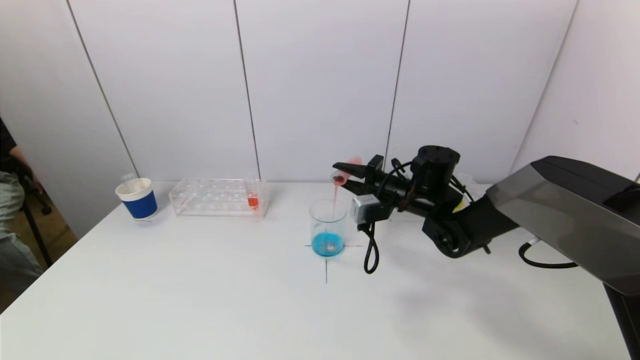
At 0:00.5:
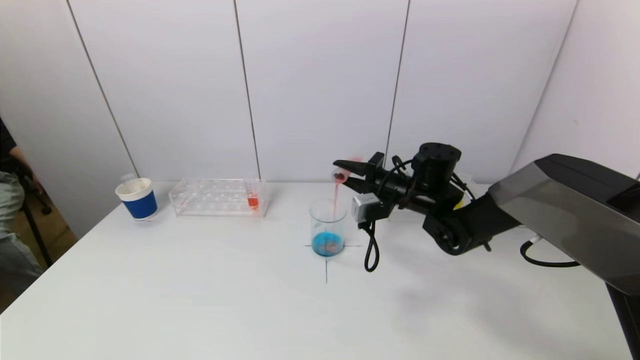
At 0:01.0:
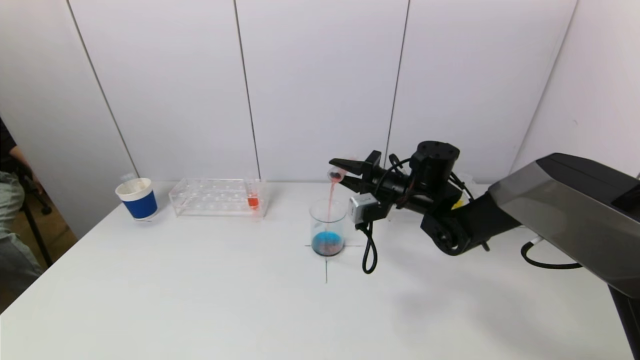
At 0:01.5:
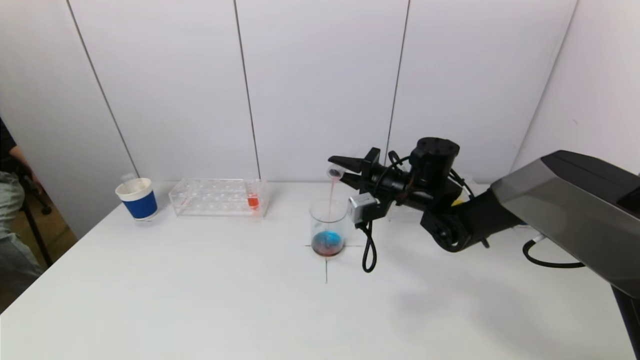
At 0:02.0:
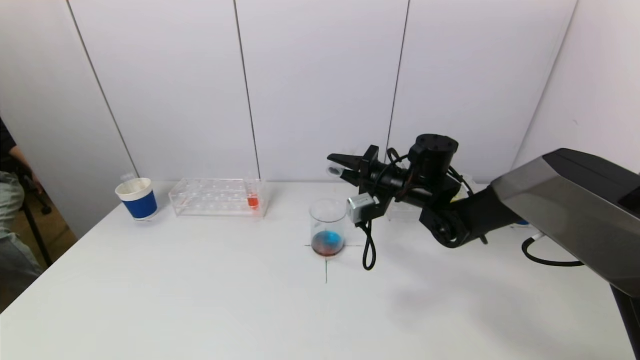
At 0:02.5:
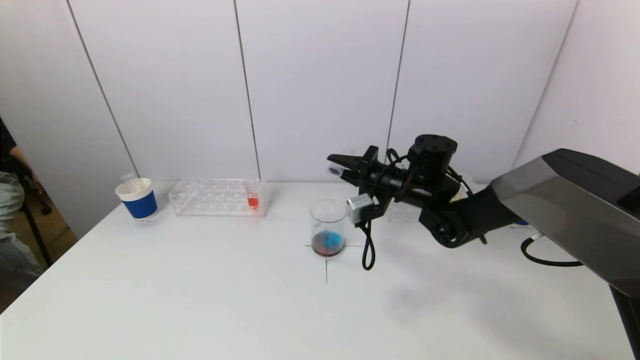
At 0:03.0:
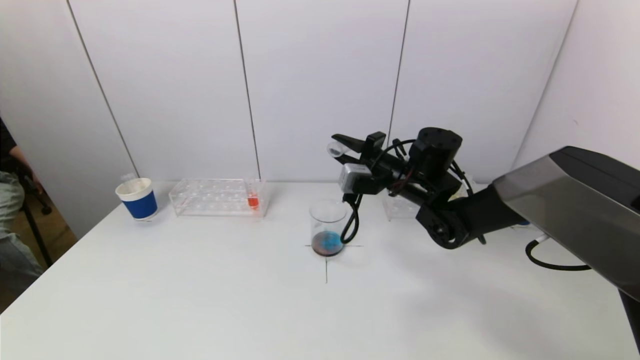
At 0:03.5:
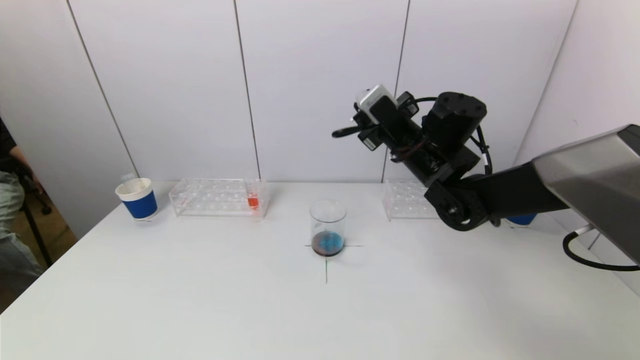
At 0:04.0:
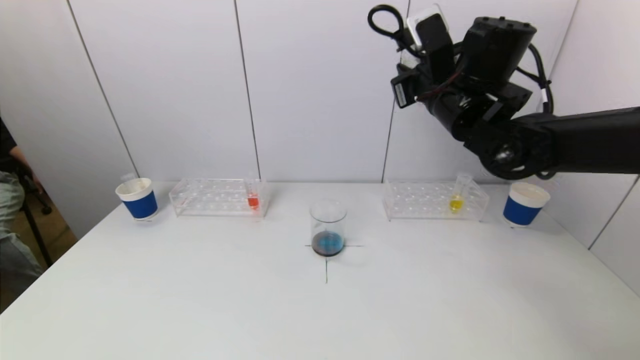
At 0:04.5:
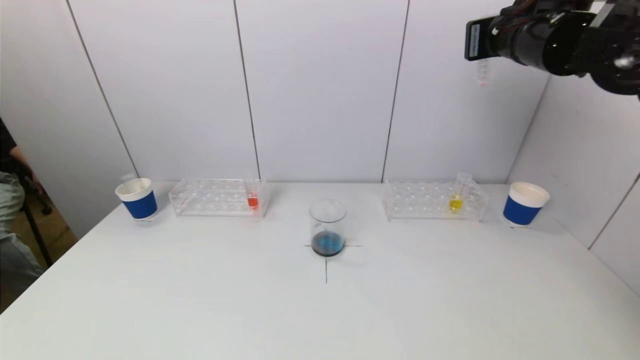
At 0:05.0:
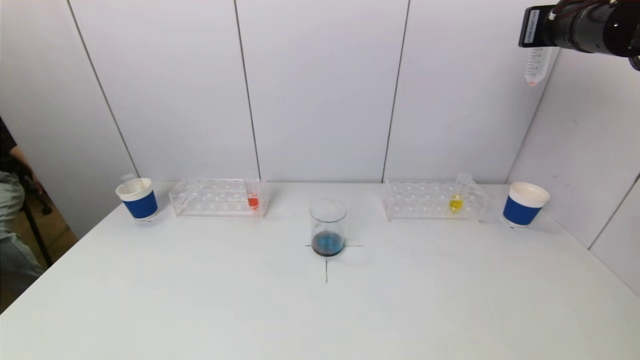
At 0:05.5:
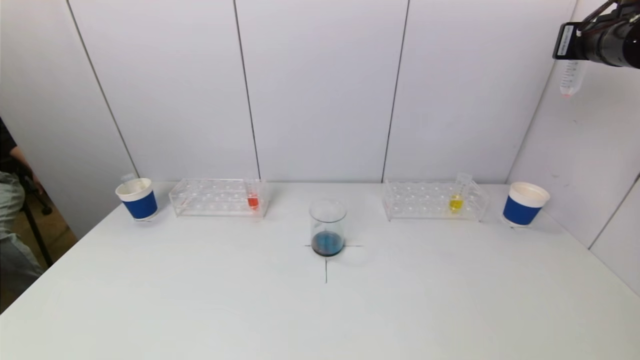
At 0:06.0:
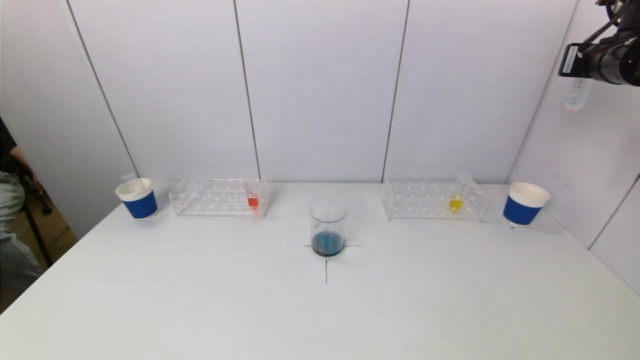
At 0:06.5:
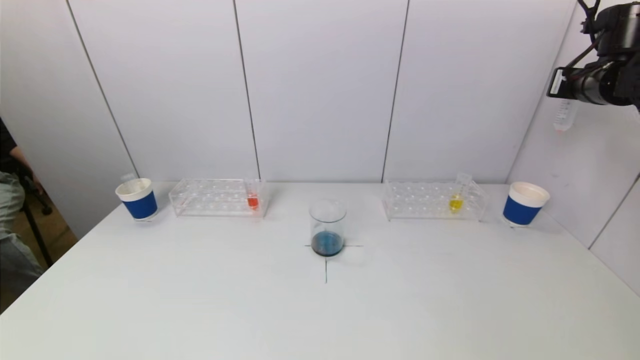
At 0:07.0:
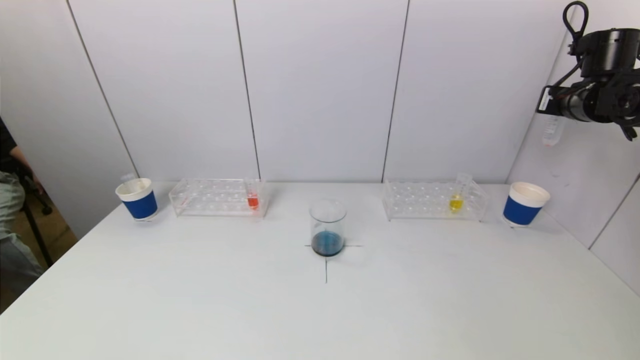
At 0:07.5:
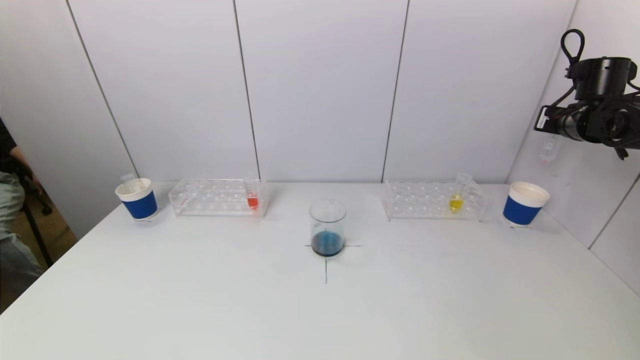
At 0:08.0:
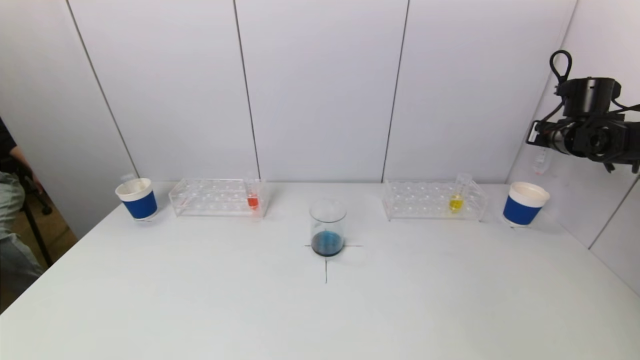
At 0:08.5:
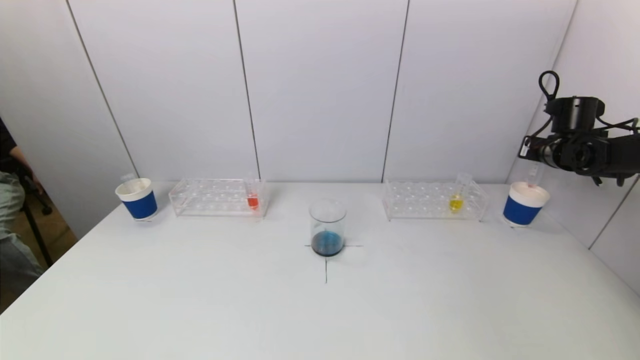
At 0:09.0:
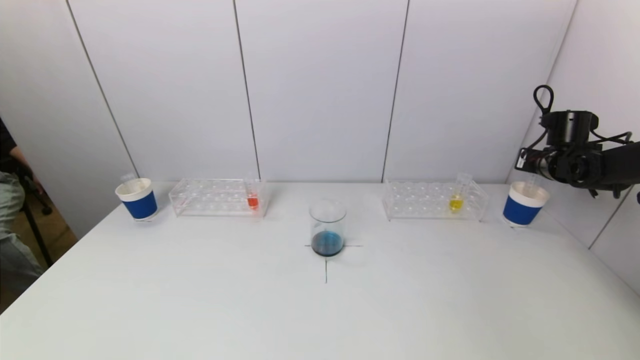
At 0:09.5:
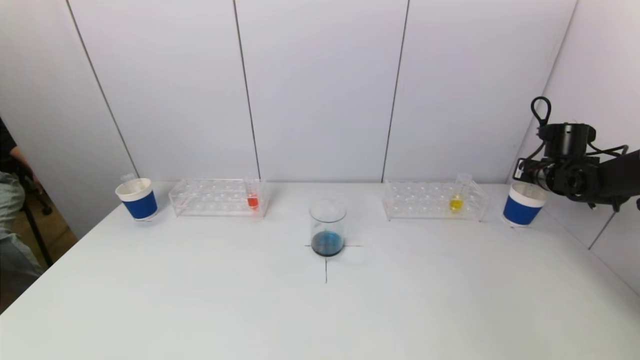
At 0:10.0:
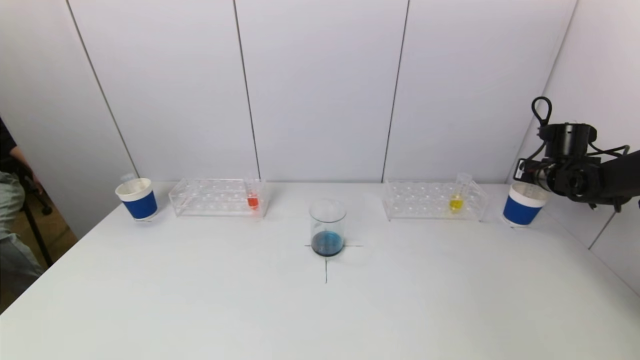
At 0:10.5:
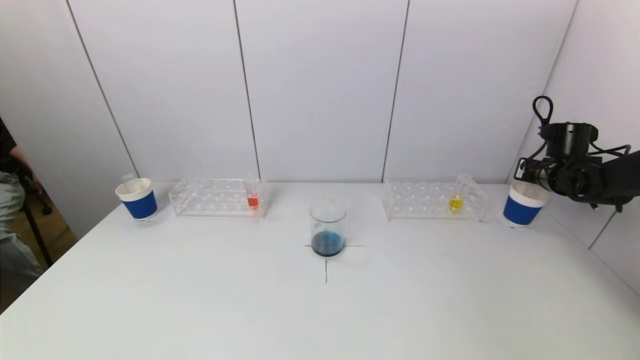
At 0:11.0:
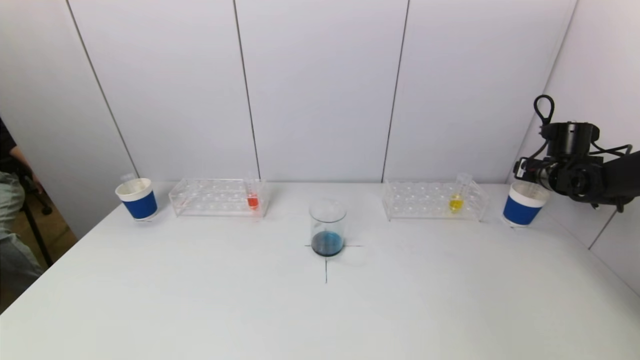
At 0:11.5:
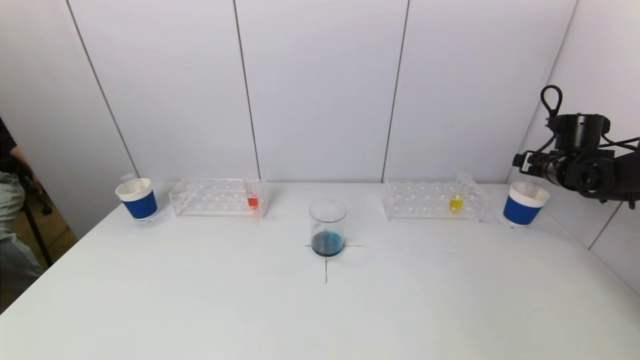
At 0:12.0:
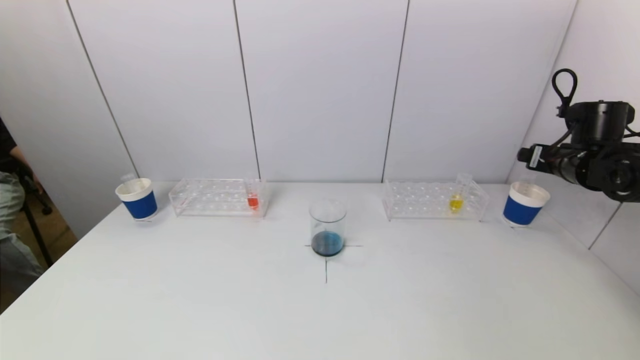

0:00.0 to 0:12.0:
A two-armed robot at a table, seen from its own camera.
Task of the whole recording: pick up a test tube with pigment on left test tube rack and a test tube with pigment on right test tube rack by grippers and pour them into the beaker.
Step, 0:00.0 to 0:02.0: Pour the red reagent into the graduated cylinder with the right gripper.
Step, 0:02.5 to 0:11.0: Place the test tube into the paper cup with the right gripper.
0:00.0 to 0:02.0: The grippers stay close to where they were, moving slightly.
0:02.0 to 0:04.0: The right gripper shifts some 15 cm upward.
0:04.0 to 0:06.0: The right gripper shifts roughly 25 cm to the right.
0:06.0 to 0:08.0: The right gripper heads downward and forward, covering approximately 15 cm.
0:08.0 to 0:10.0: The right gripper goes roughly 10 cm downward.
0:10.0 to 0:12.0: The right gripper moves backward and upward, approximately 10 cm, and opens.

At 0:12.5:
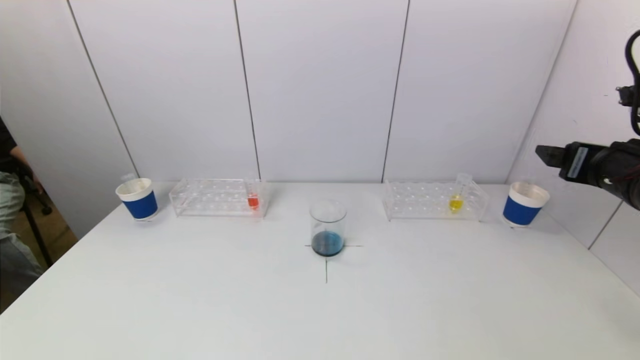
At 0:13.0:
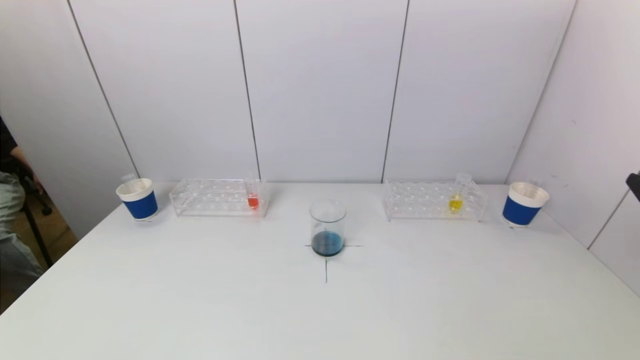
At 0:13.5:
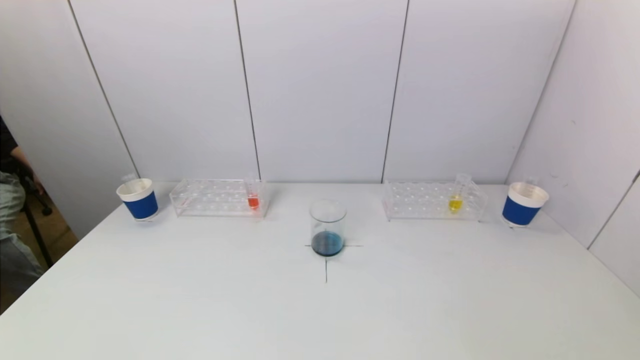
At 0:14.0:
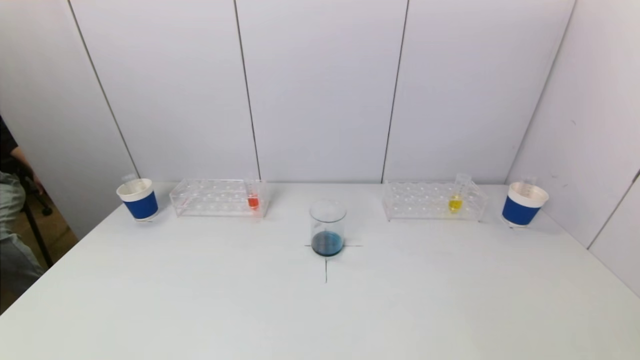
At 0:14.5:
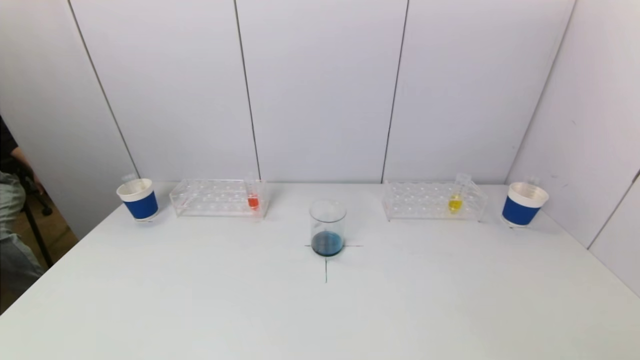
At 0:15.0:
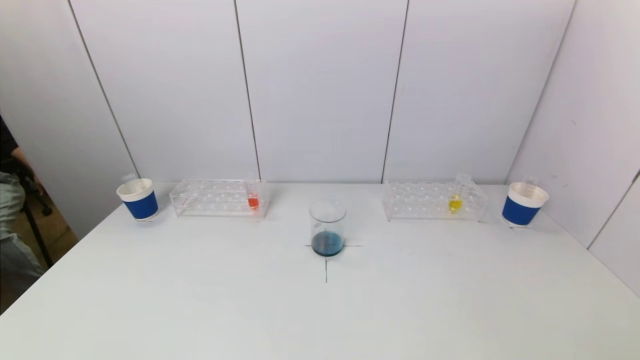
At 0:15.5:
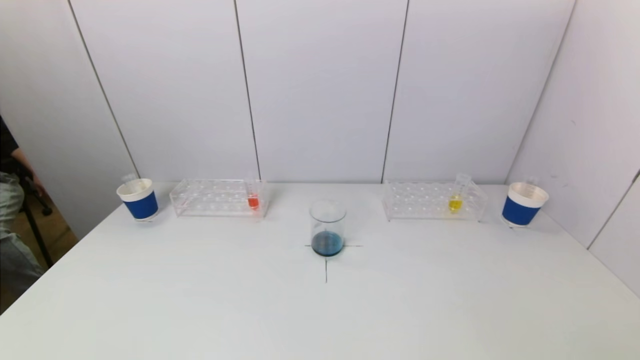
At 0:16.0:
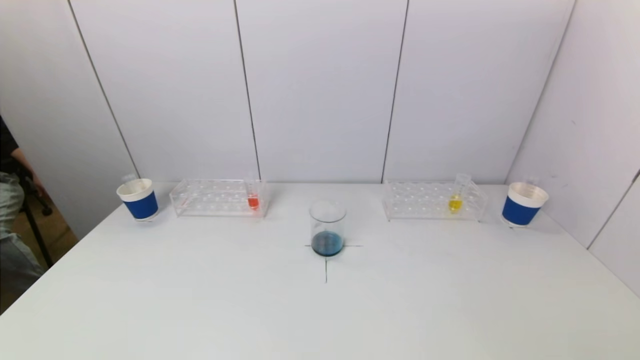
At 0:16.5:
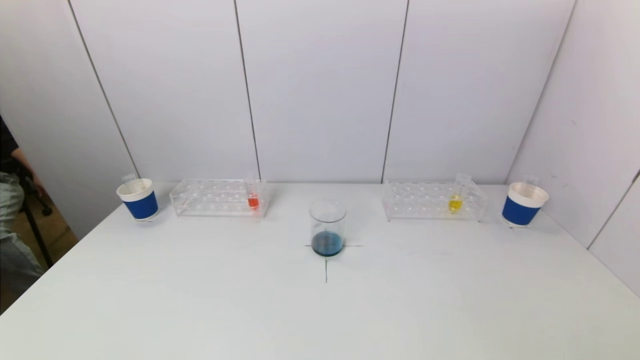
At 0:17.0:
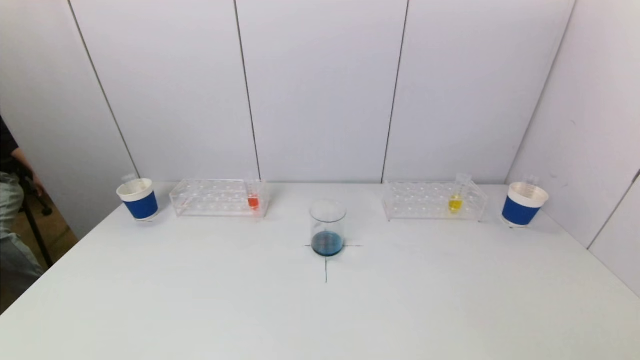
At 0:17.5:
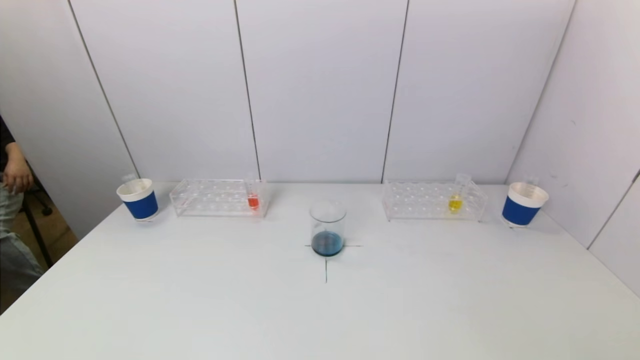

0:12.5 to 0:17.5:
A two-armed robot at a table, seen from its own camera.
Task of the whole recording: pick up a test tube with pigment on left test tube rack and a test tube with pigment on right test tube rack by grippers and pour them into the beaker.
0:12.5 to 0:15.0: The right gripper heads backward and downward, covering about 30 cm.

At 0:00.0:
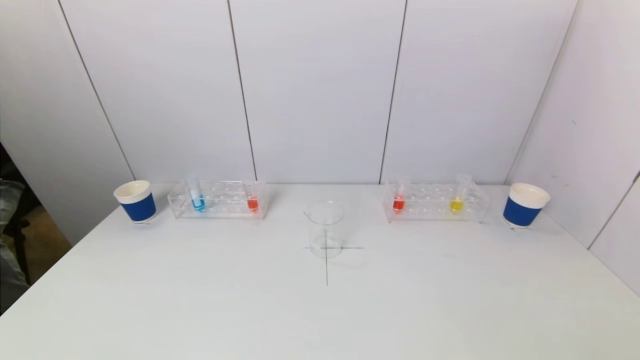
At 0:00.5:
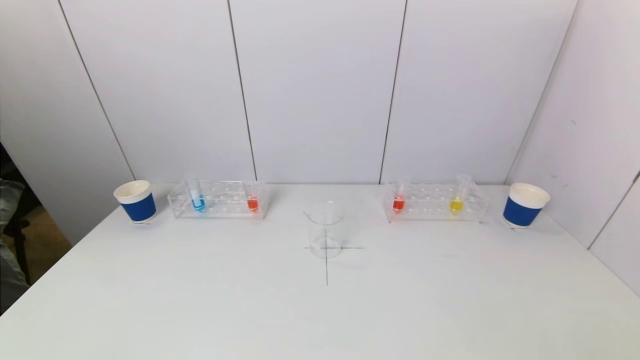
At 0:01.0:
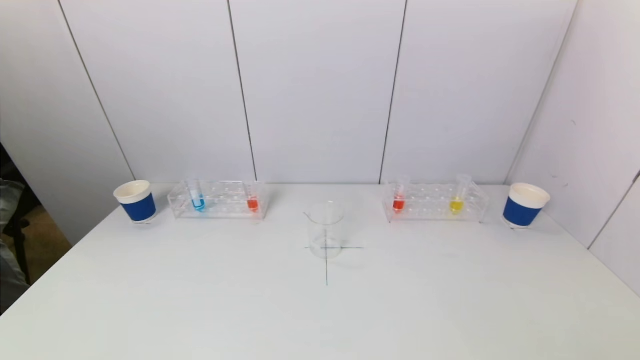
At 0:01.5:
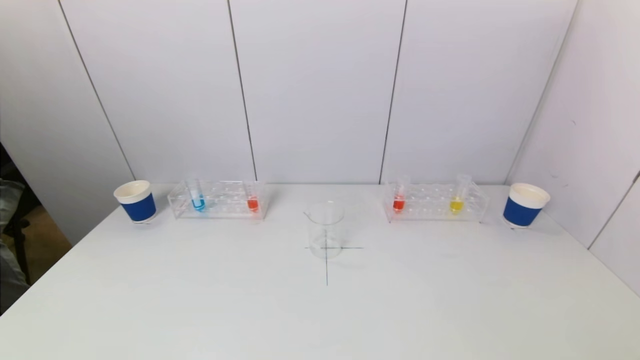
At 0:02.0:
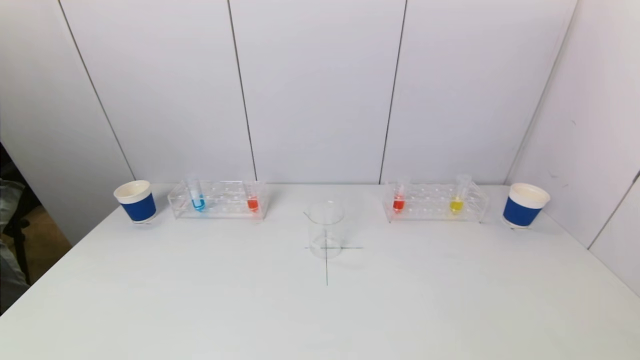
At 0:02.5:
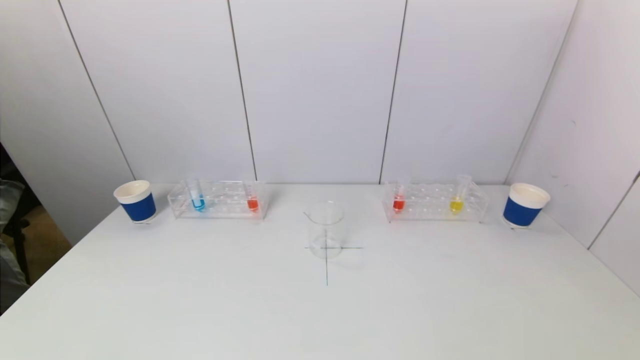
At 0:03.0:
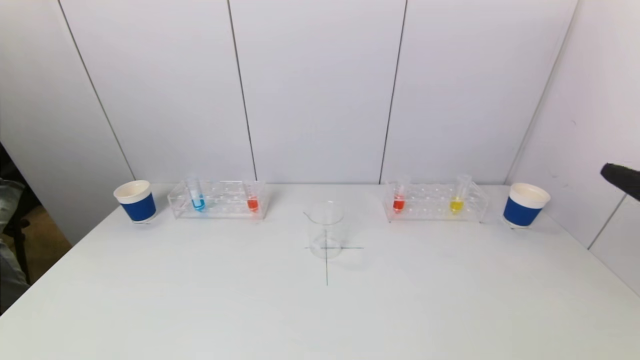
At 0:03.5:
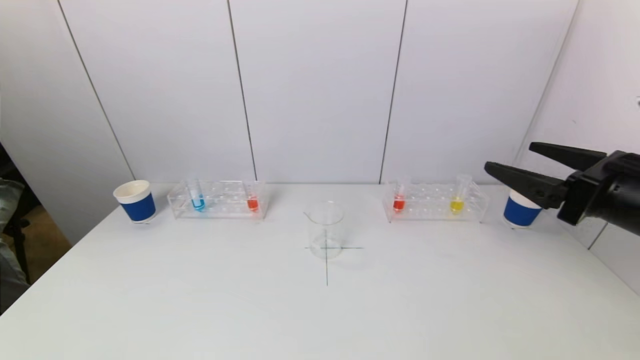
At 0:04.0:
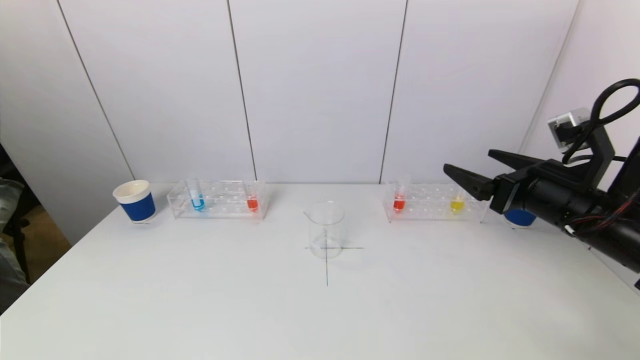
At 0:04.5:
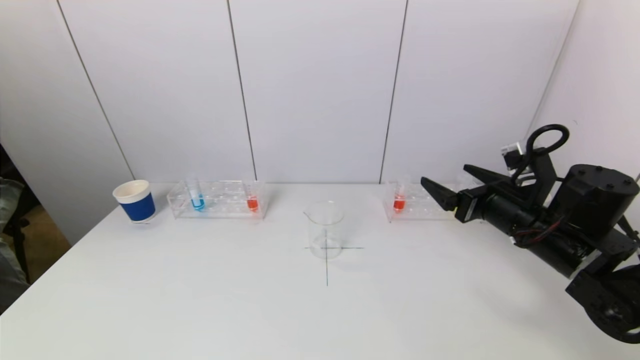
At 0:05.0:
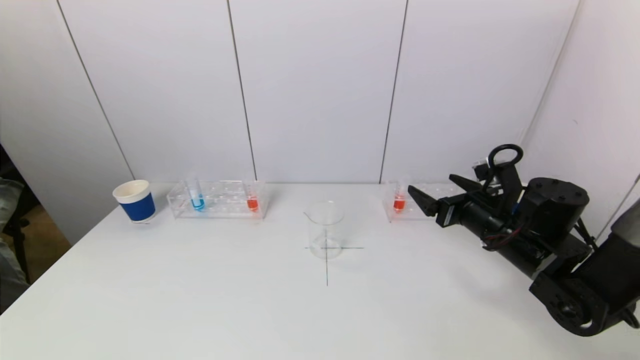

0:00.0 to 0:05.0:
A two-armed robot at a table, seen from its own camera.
Task of the whole recording: pick up a test tube with pigment on left test tube rack and a test tube with pigment on right test tube rack by grippers and pour them into the beaker.
0:02.5 to 0:05.0: The right gripper is displaced forward and downward by roughly 30 cm.
